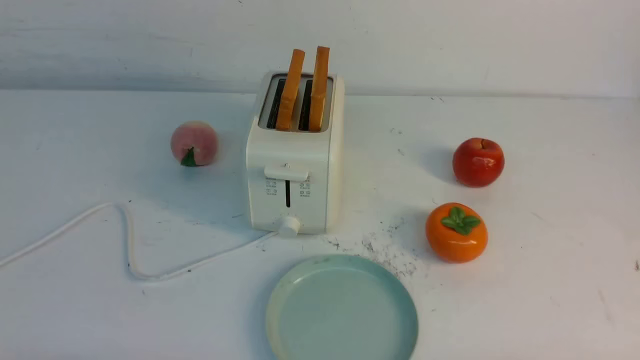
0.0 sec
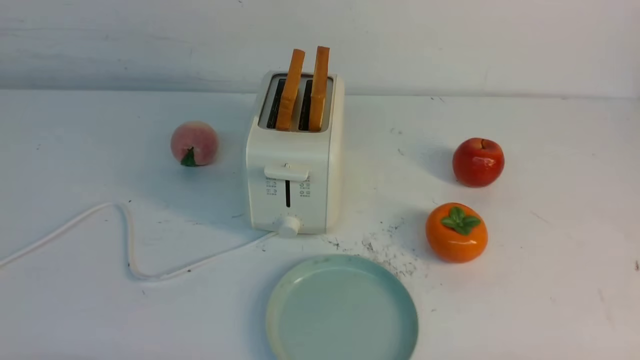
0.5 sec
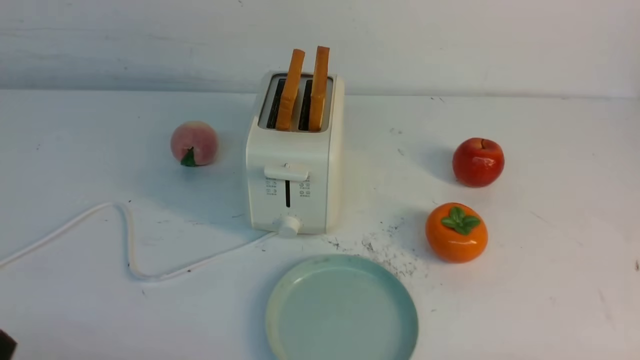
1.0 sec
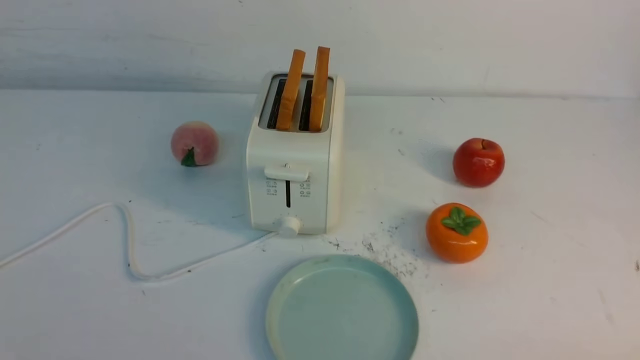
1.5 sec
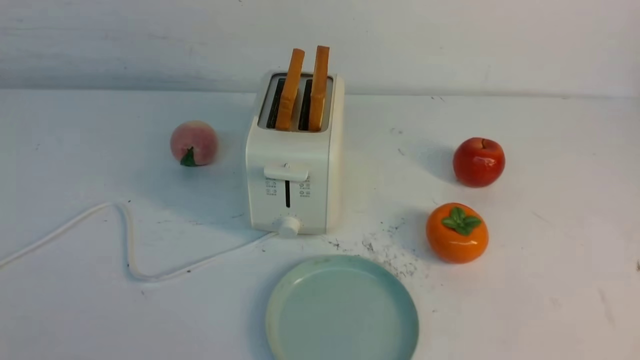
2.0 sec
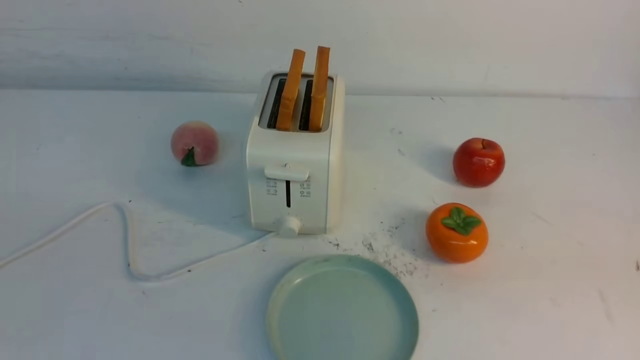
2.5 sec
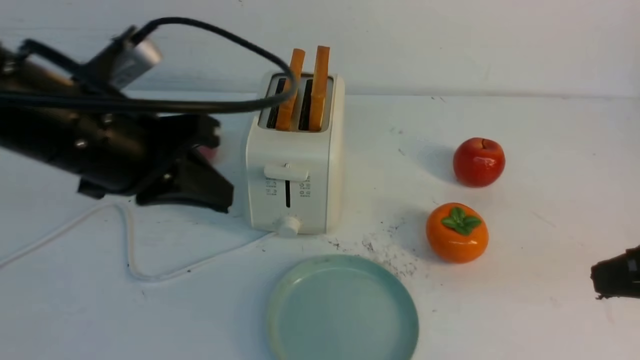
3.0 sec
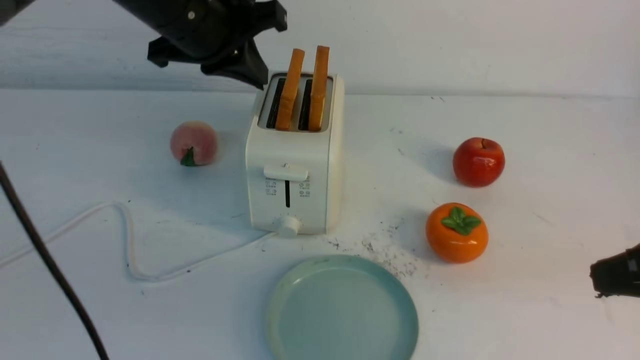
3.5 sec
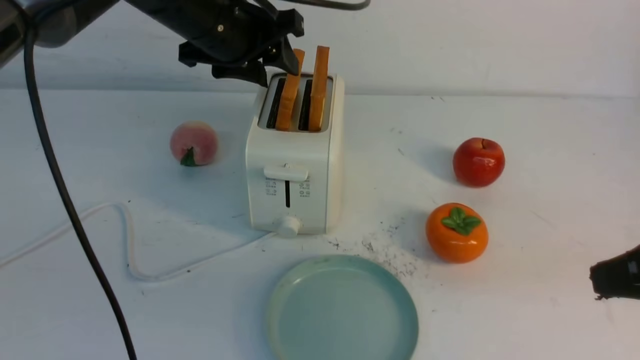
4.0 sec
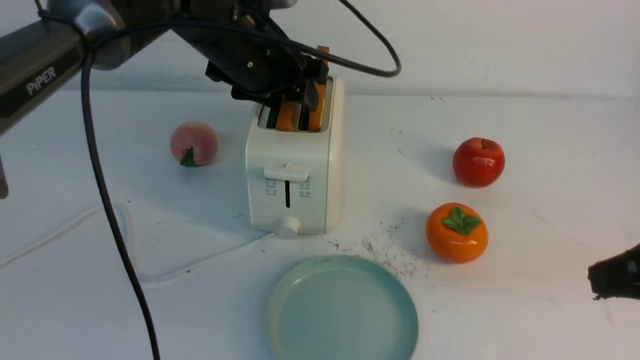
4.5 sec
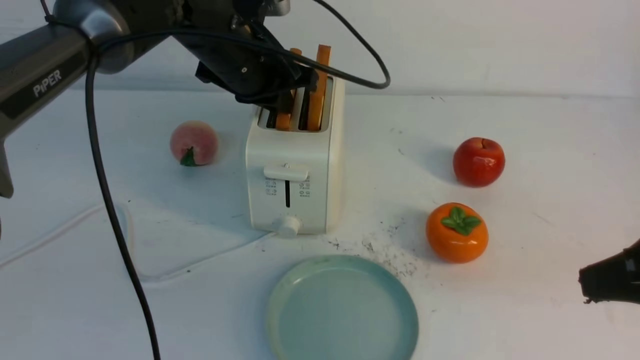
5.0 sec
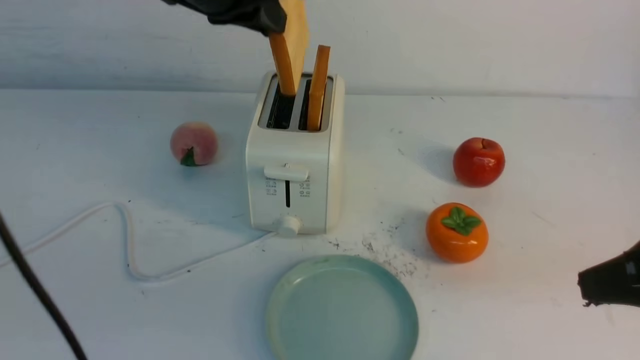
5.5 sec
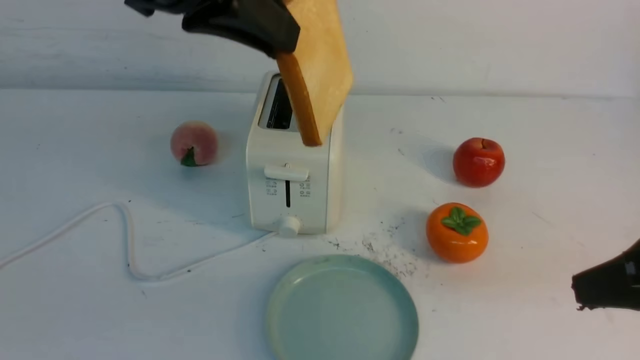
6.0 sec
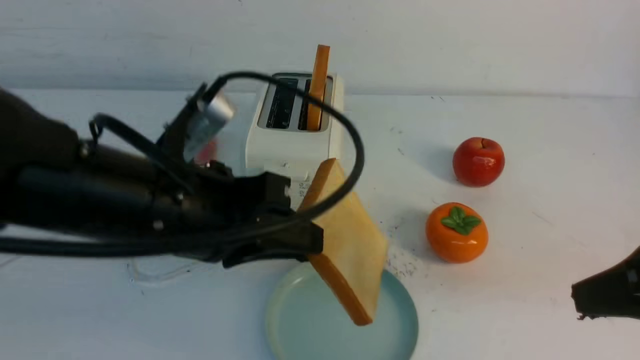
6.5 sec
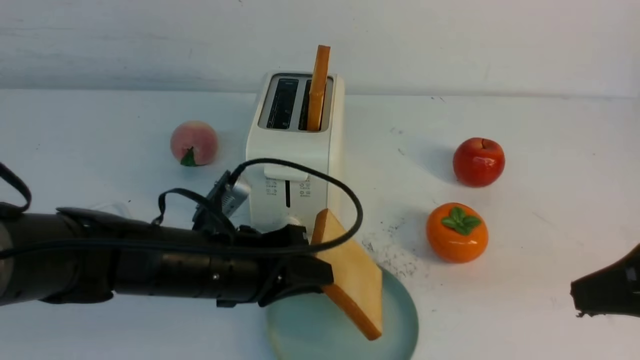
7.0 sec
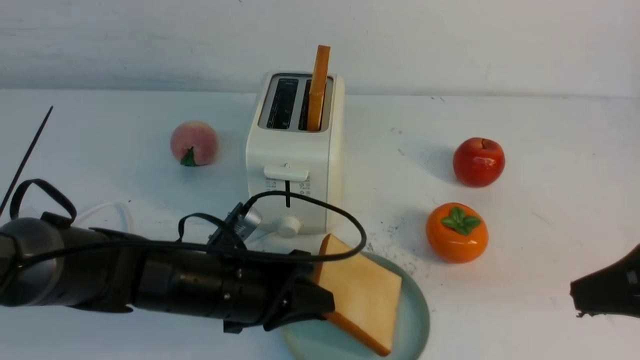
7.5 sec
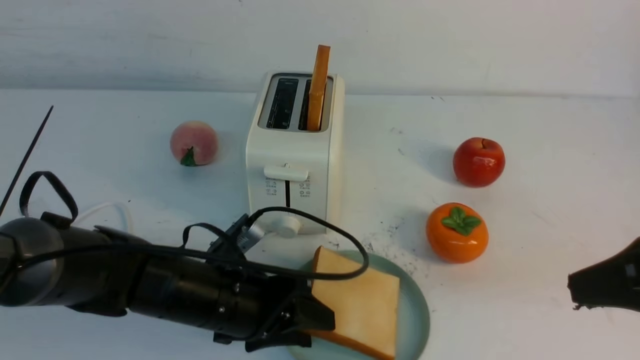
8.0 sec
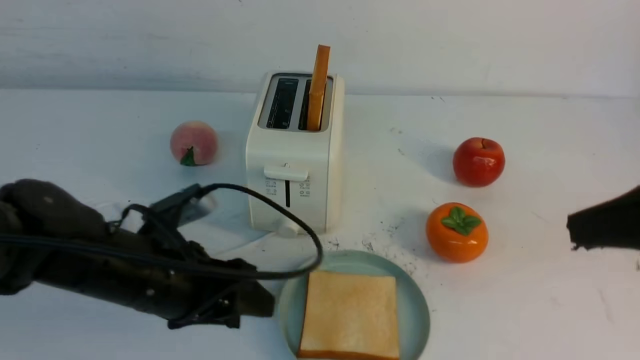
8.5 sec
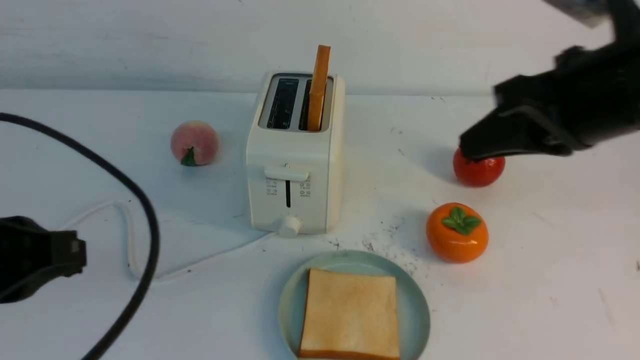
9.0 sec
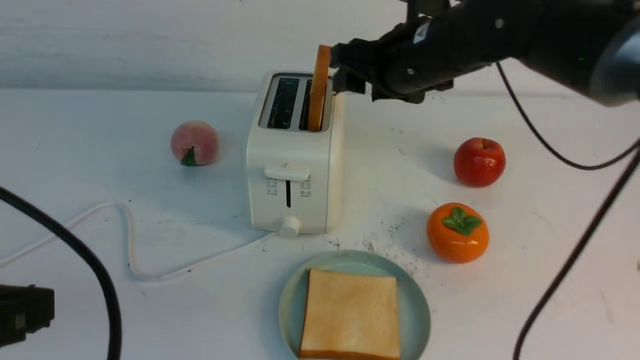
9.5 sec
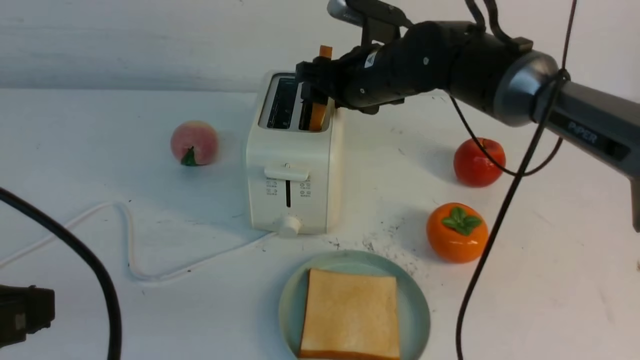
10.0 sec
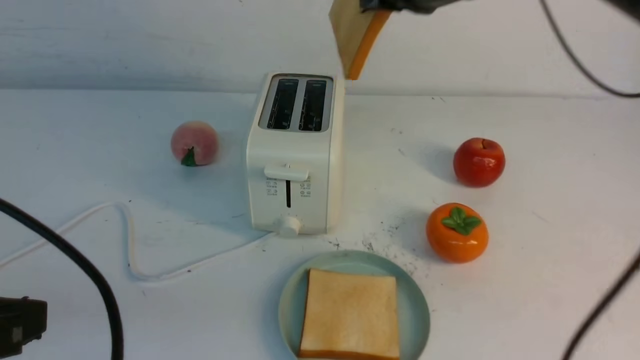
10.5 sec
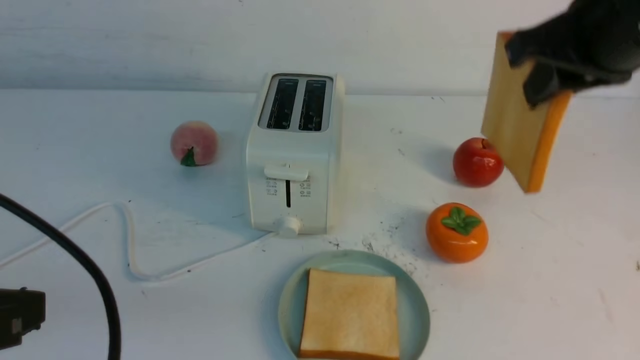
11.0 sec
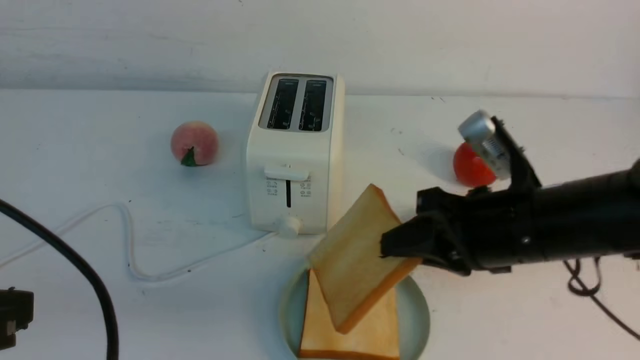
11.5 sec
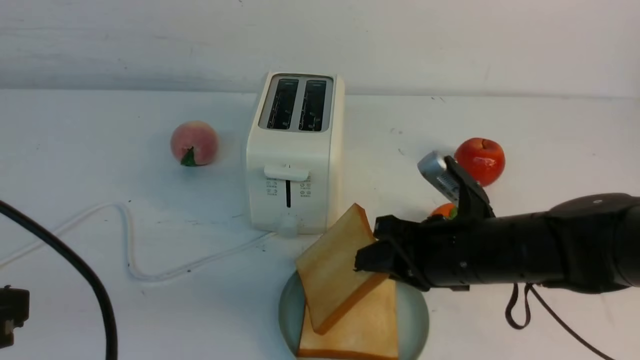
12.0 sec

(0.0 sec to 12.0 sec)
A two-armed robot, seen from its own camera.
Task of the whole recording: take toasted bread from bread machine on white table place on plate.
Step, 0.0 sec - 5.0 sec: use the left arm to take out a slice of bread.
Step, 5.5 sec - 8.0 sec: use the left arm to put a slice of bread into the empty plate.
Step, 8.5 sec - 10.0 sec: use the right arm to take out a slice of bread.
2.0 sec - 4.0 sec: The right gripper goes roughly 15 cm forward and upward, and closes up. The left gripper heads forward and to the right, covering some 40 cm, and opens its fingers.
4.0 sec - 6.0 sec: The left gripper goes about 20 cm backward and upward, and closes up.
6.0 sec - 8.0 sec: The left gripper heads downward, covering about 30 cm, and opens.
8.0 sec - 10.0 sec: The left gripper travels upward, backward and to the left by roughly 25 cm, and closes its fingers. The right gripper shifts roughly 35 cm forward and to the left, and opens its fingers.
10.0 sec - 12.0 sec: The right gripper travels backward, downward and to the right by some 20 cm, and closes up.

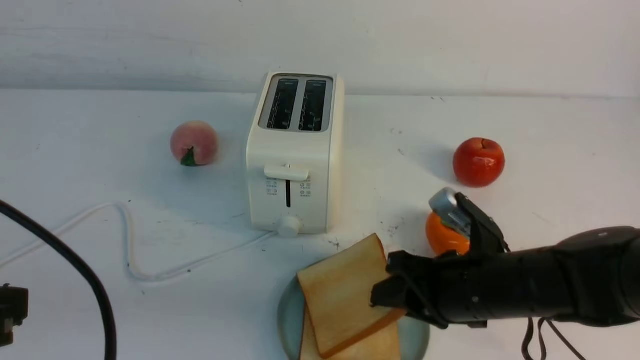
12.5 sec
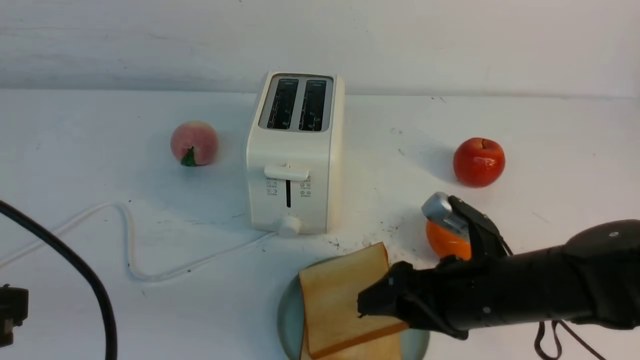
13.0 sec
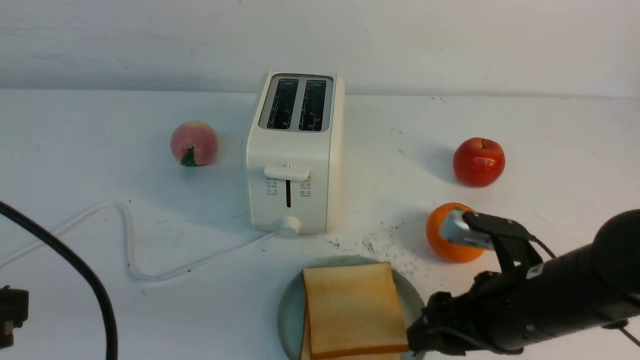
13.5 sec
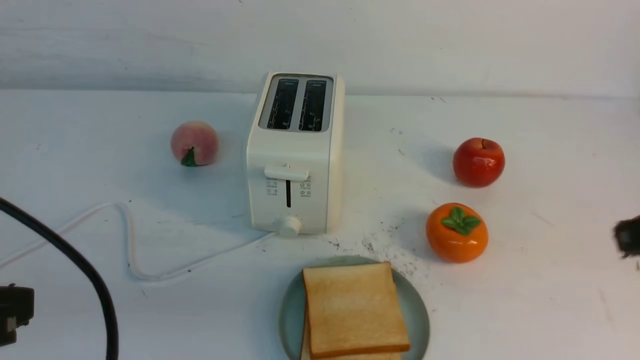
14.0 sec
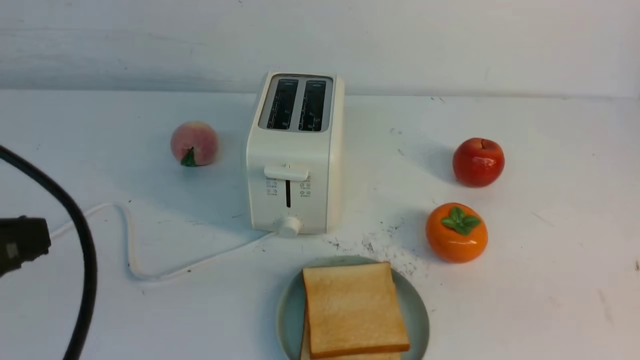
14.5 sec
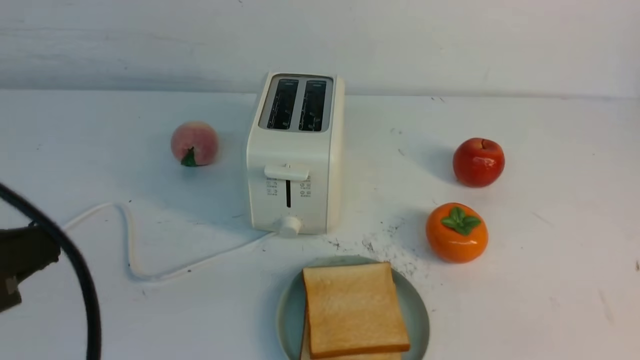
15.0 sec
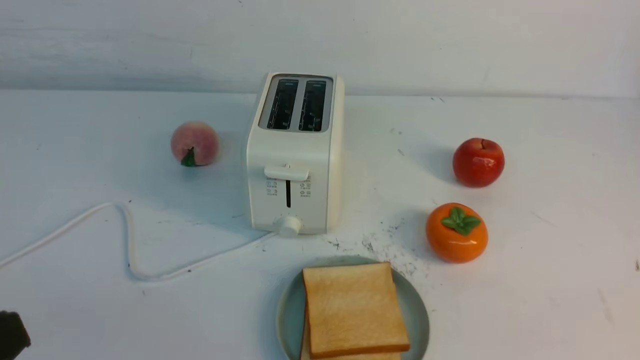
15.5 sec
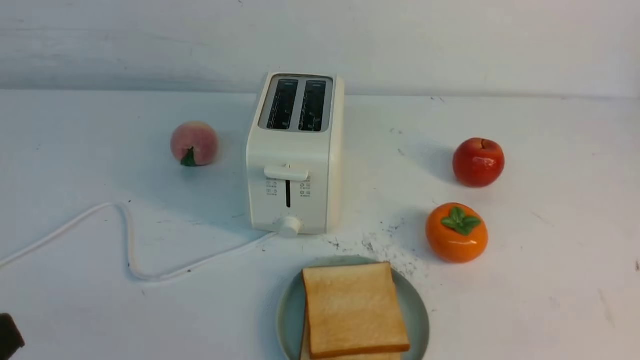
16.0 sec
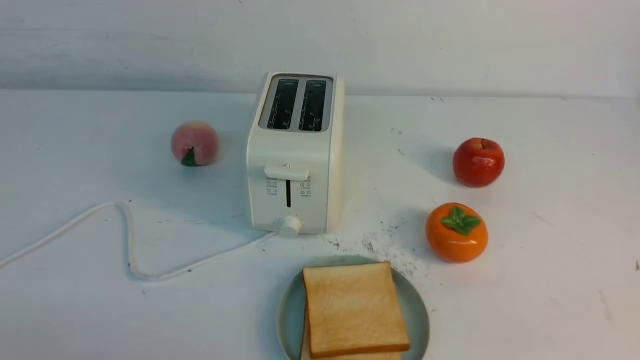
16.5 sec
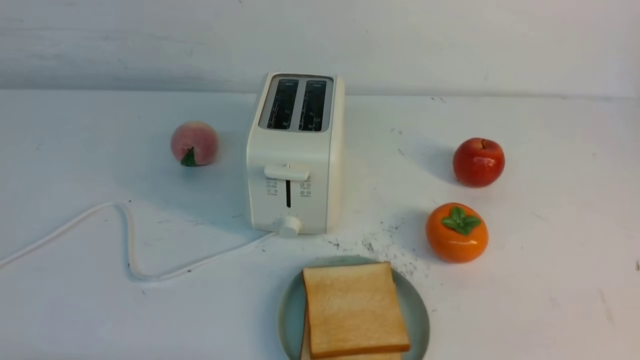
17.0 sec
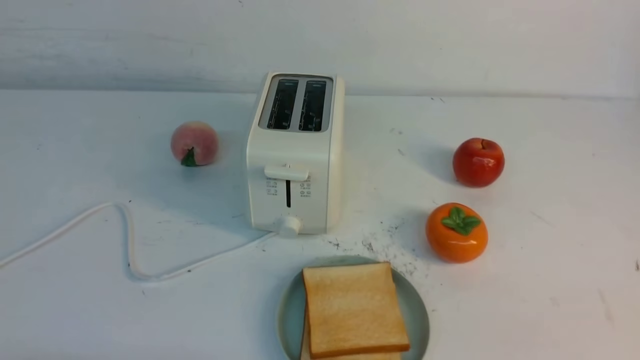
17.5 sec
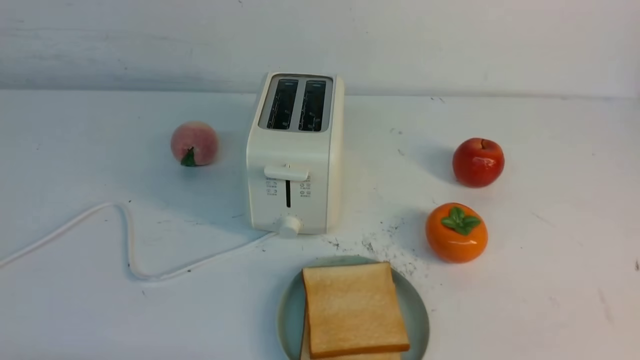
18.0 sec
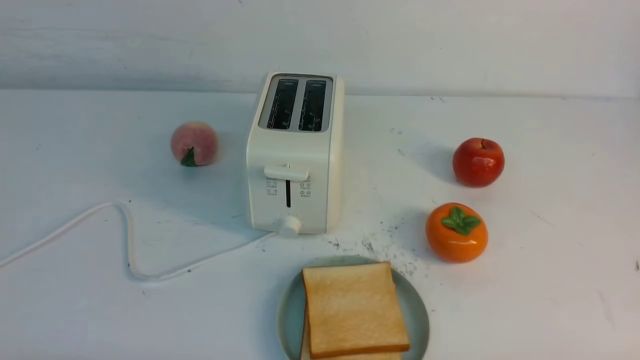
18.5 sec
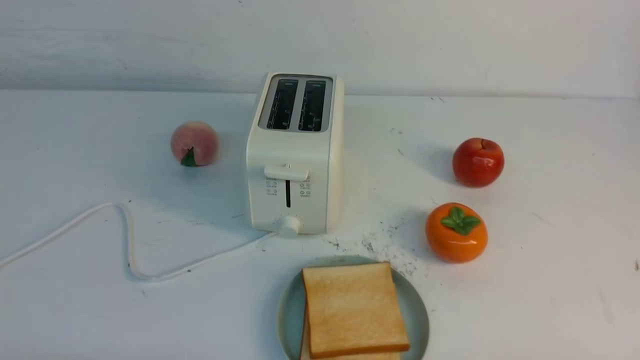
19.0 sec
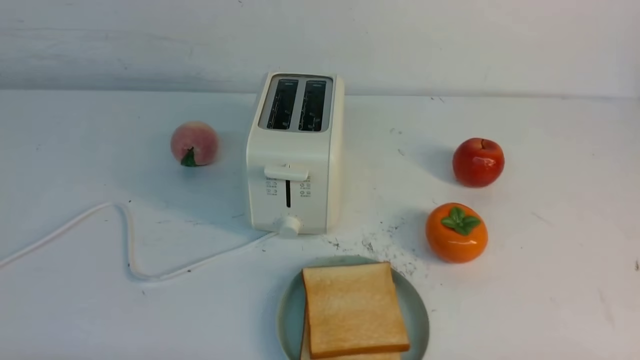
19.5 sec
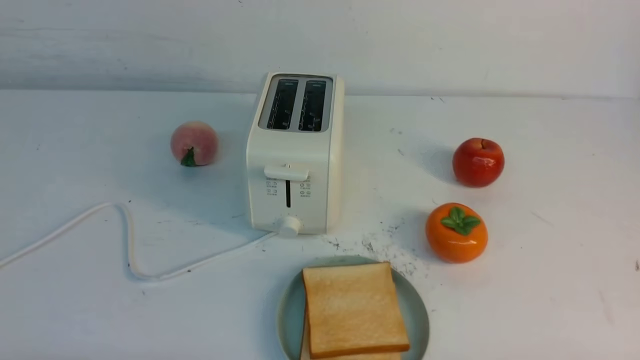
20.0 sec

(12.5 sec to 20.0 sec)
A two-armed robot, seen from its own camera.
Task of the whole recording: take toasted bread from bread machine on white table place on plate.
12.5 sec - 14.5 sec: The right gripper heads backward, to the right and upward, covering roughly 30 cm, and closes its fingers.
14.5 sec - 16.5 sec: The left gripper is displaced downward and backward by roughly 15 cm.
